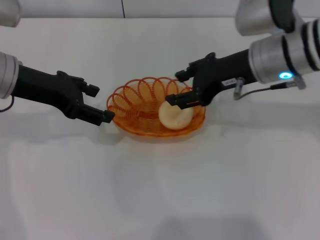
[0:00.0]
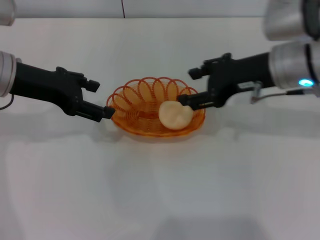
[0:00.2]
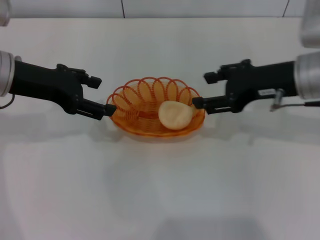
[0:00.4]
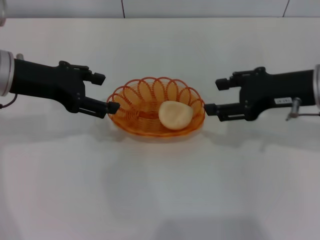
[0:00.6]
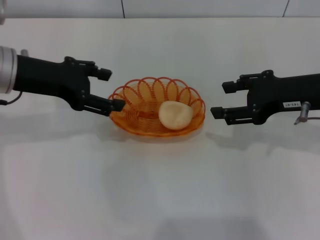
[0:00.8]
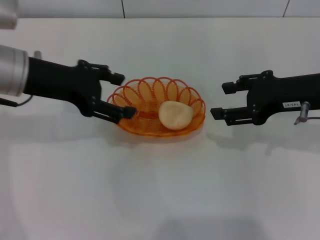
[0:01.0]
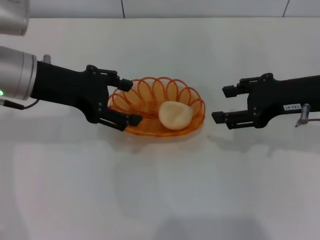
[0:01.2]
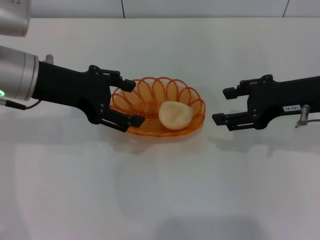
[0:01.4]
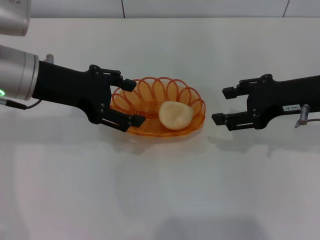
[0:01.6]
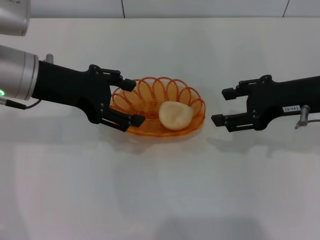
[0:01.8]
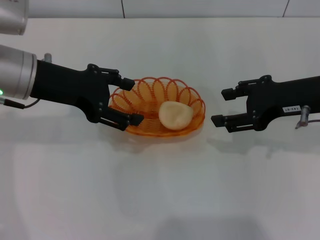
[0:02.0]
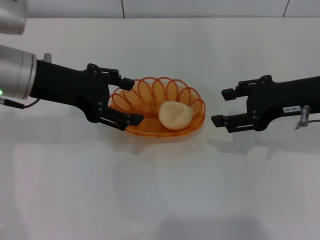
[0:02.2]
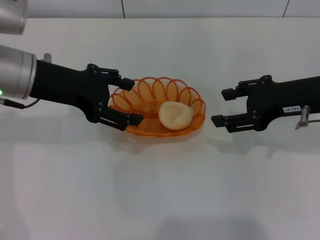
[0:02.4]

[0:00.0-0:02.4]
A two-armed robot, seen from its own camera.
0:00.0 to 0:01.2: The right gripper is displaced to the right by about 10 cm, and opens.
0:01.2 to 0:02.4: Both grippers stay about where they are.

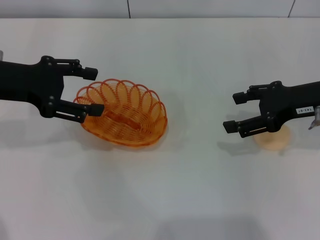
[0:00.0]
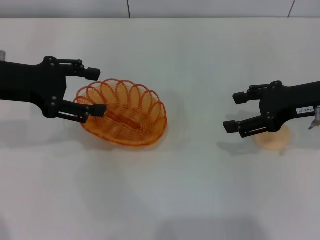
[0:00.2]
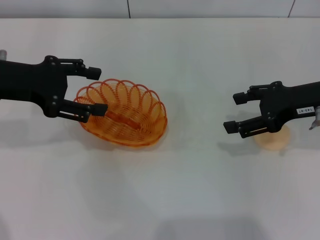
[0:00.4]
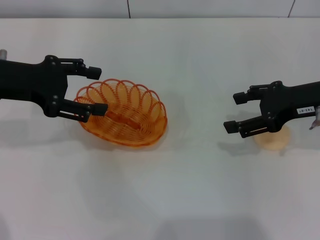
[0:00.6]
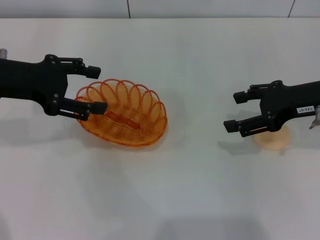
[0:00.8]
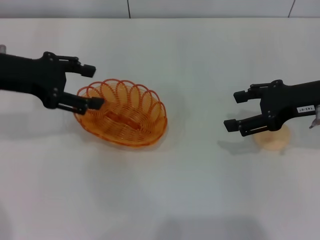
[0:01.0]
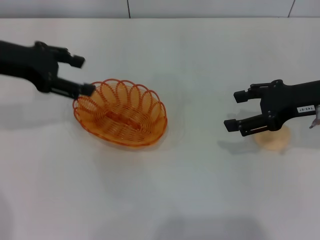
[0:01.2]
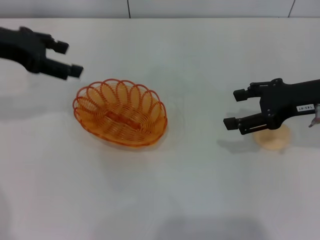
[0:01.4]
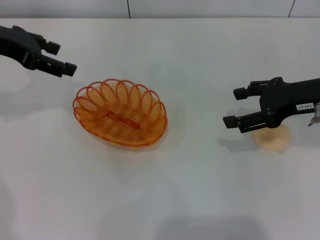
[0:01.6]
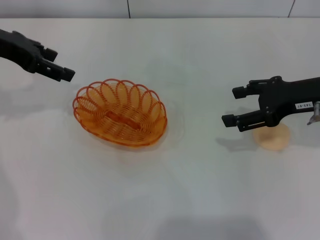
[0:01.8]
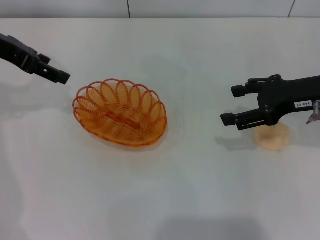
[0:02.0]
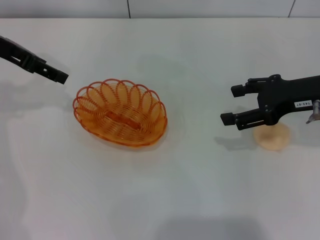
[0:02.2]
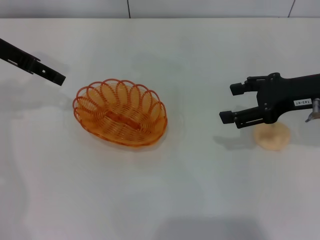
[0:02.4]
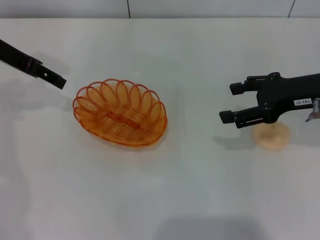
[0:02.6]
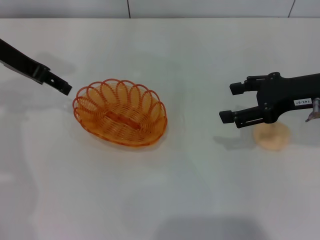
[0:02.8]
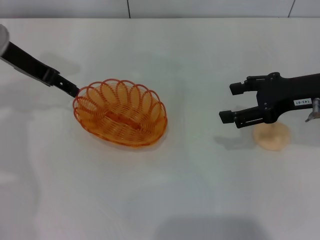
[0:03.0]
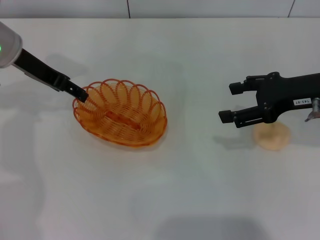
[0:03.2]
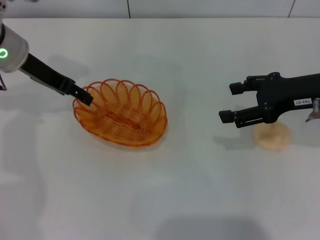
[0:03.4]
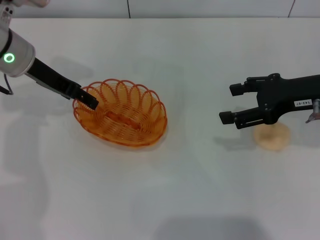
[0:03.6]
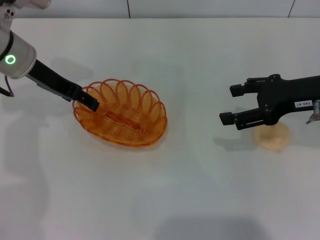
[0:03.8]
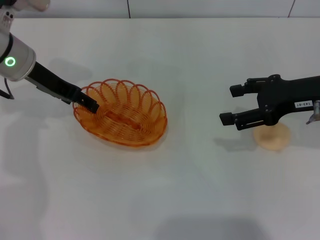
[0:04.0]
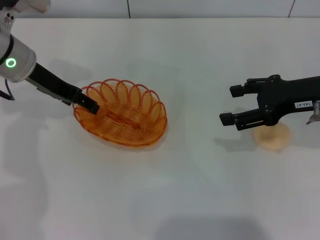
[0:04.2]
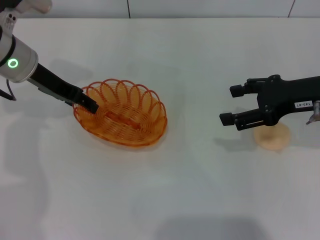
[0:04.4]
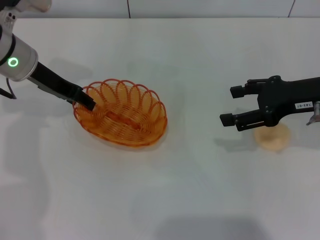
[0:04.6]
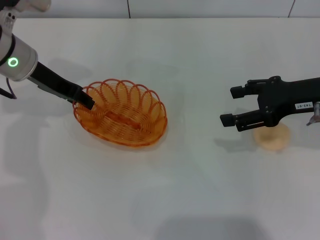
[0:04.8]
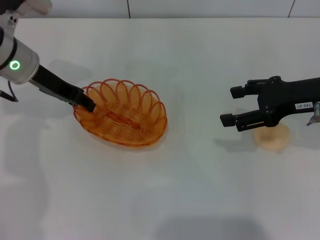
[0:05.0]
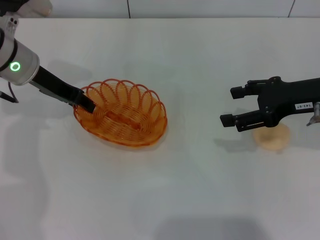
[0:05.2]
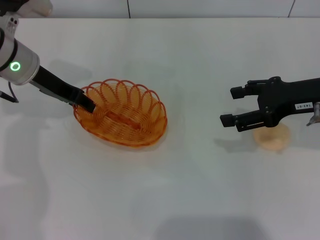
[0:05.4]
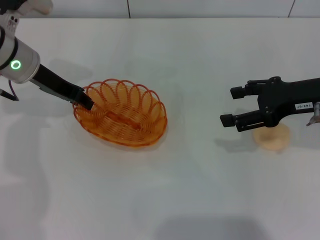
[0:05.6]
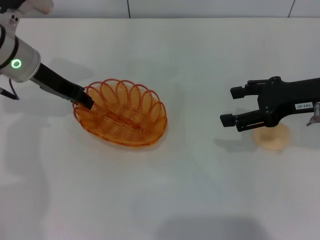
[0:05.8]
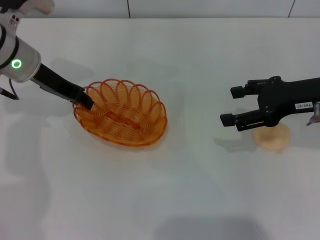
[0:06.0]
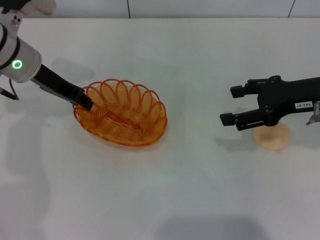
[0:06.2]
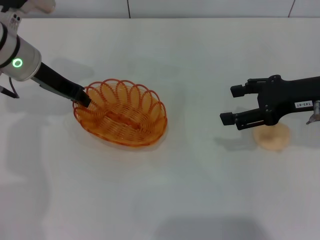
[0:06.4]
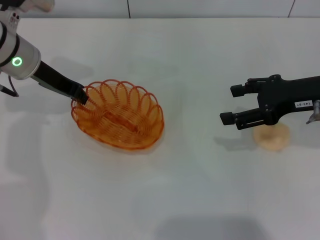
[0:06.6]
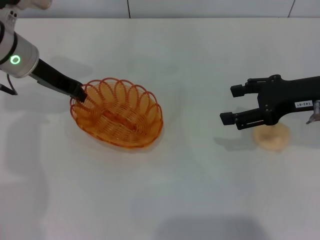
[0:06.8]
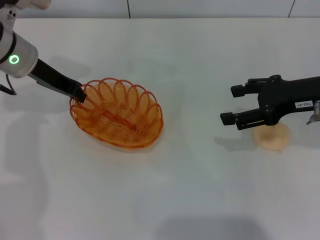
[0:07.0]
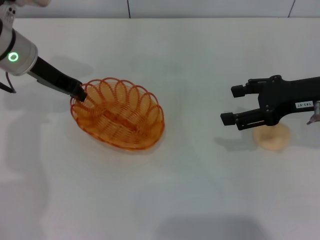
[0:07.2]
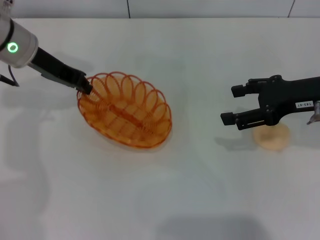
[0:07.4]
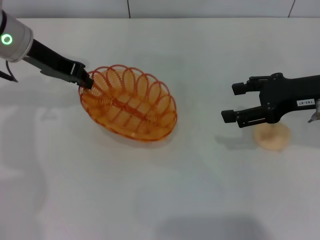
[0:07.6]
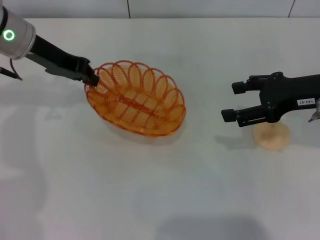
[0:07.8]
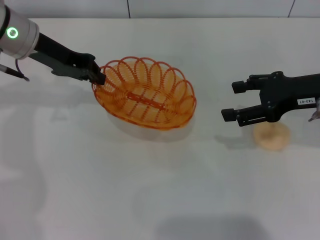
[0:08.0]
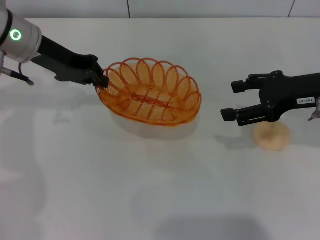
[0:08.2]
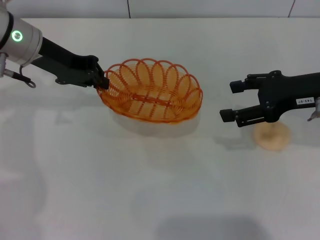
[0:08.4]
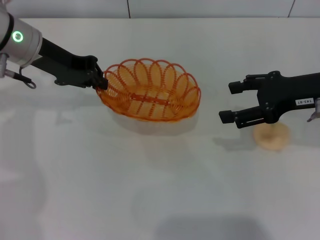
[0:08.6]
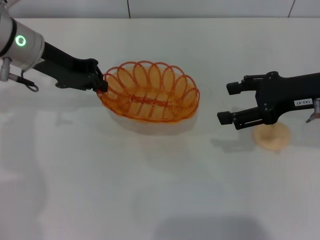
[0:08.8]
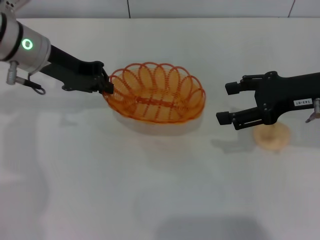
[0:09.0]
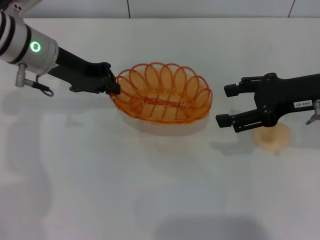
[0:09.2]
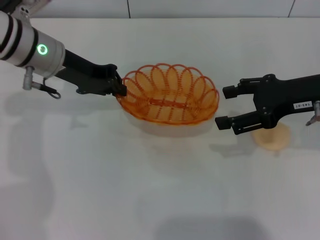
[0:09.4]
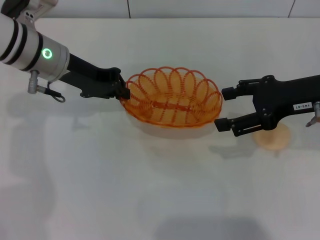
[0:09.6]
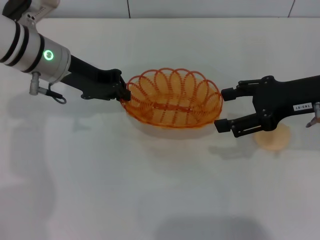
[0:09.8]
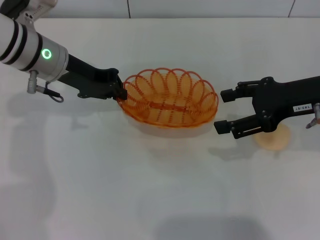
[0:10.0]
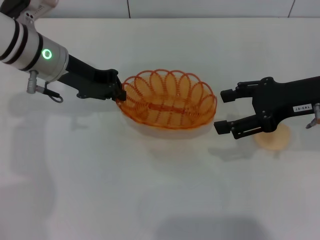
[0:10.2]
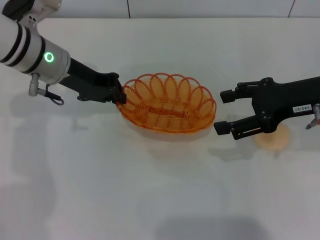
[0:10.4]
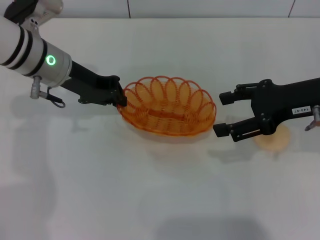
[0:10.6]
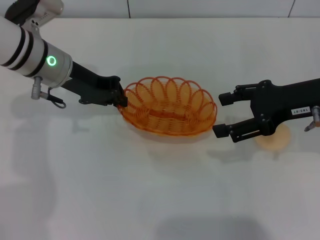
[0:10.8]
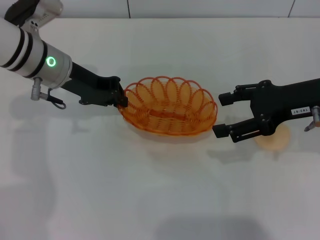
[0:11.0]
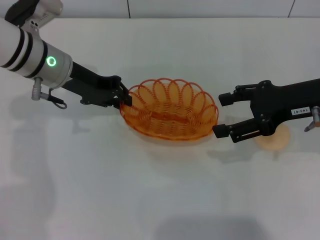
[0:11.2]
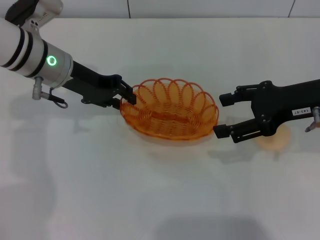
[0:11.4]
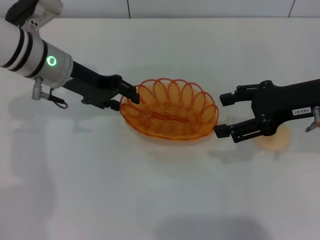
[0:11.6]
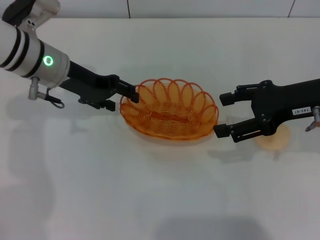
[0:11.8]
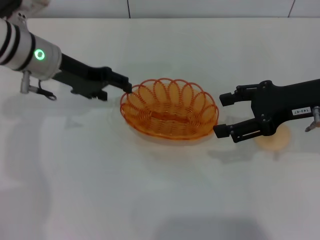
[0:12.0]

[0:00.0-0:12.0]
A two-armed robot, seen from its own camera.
Step, 0:00.0 to 0:08.2: Pick up the basket with the left gripper.
0:00.0 to 0:01.6: The left gripper shifts some 5 cm forward.
0:01.6 to 0:03.0: The left gripper shifts by about 5 cm.
0:03.0 to 0:04.4: The grippers move only a little.
0:04.4 to 0:06.0: The left gripper closes up.
0:06.0 to 0:07.6: The grippers move only a little.
0:09.0 to 0:10.4: The grippers stay close to where they were, moving slightly.
0:10.4 to 0:12.0: The left gripper opens.

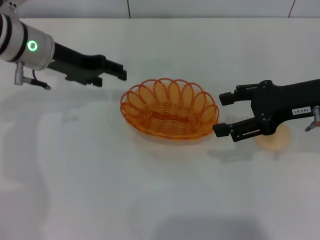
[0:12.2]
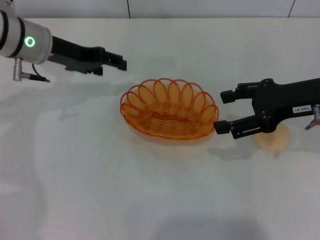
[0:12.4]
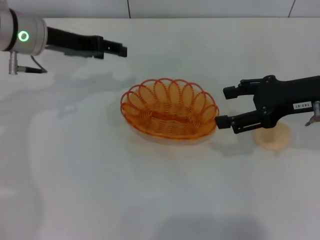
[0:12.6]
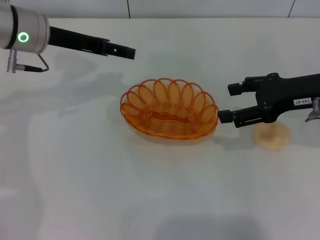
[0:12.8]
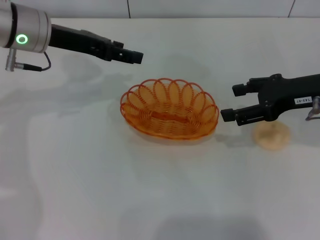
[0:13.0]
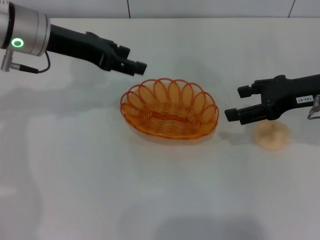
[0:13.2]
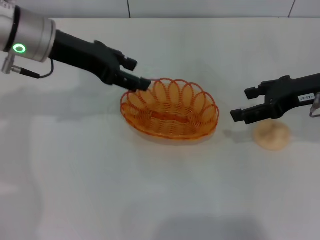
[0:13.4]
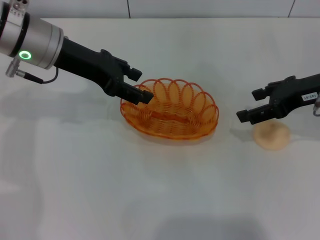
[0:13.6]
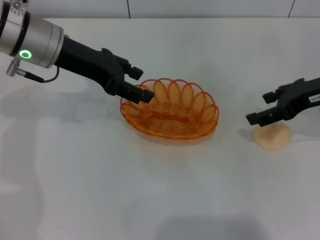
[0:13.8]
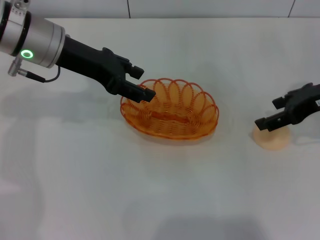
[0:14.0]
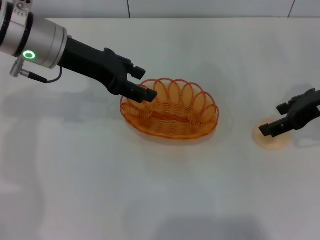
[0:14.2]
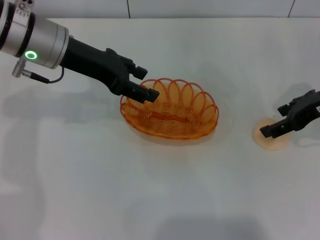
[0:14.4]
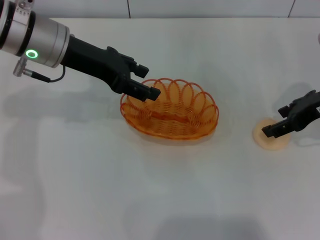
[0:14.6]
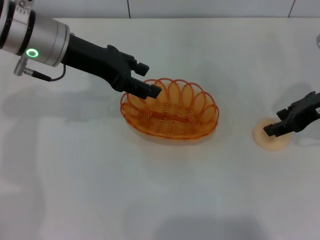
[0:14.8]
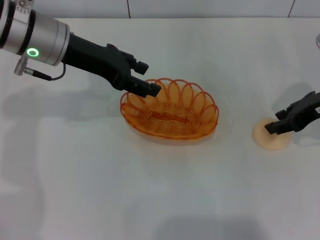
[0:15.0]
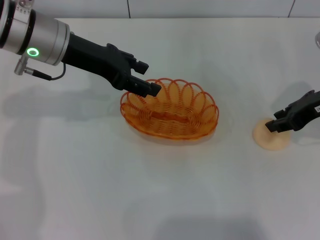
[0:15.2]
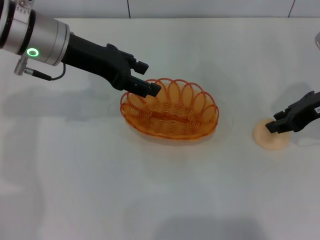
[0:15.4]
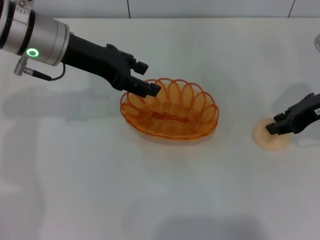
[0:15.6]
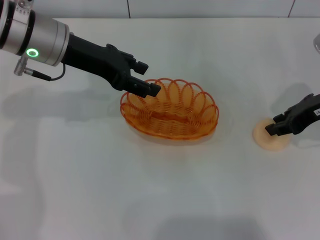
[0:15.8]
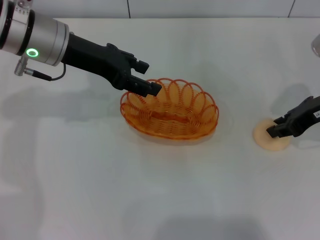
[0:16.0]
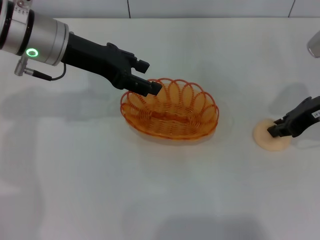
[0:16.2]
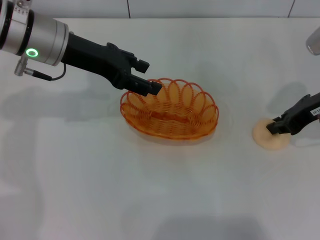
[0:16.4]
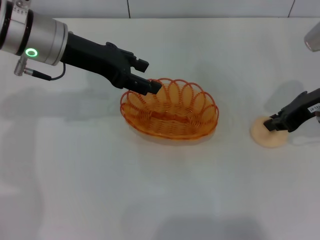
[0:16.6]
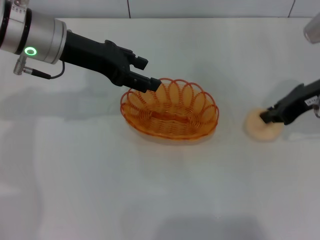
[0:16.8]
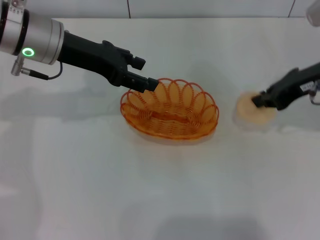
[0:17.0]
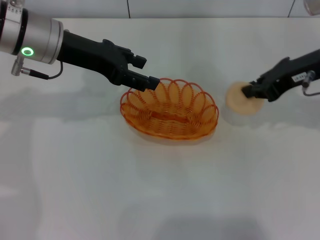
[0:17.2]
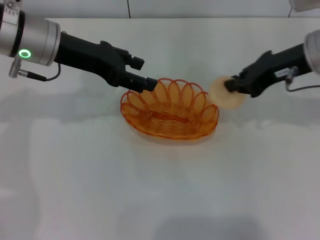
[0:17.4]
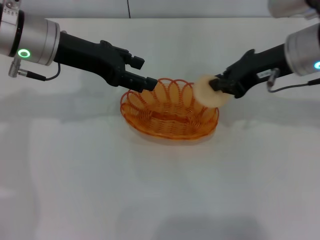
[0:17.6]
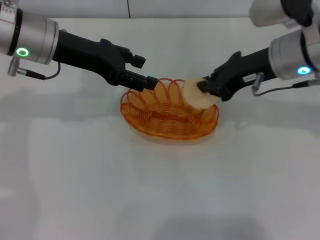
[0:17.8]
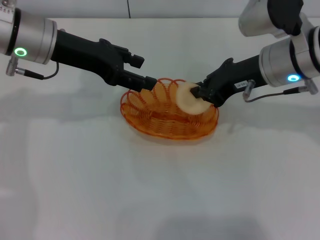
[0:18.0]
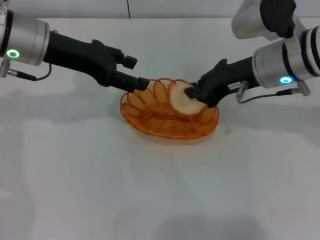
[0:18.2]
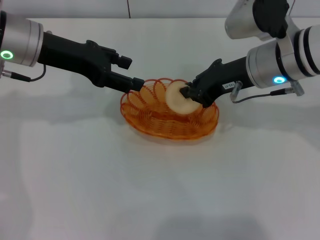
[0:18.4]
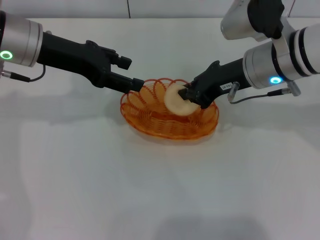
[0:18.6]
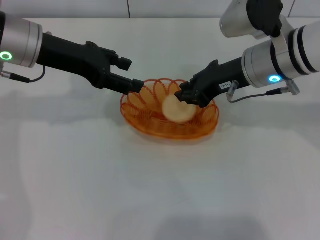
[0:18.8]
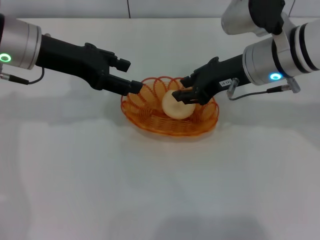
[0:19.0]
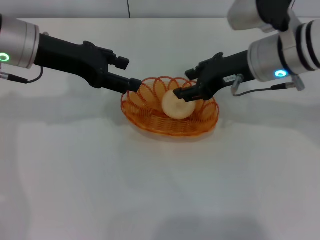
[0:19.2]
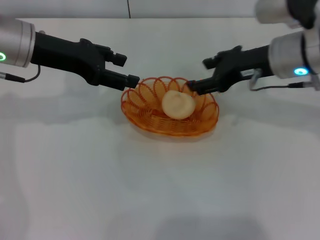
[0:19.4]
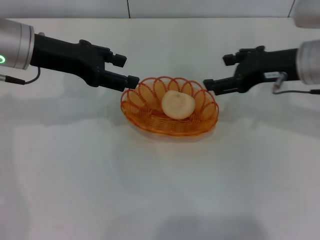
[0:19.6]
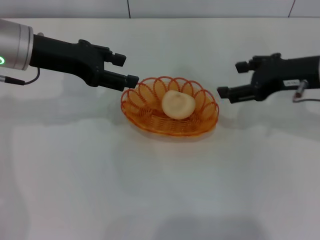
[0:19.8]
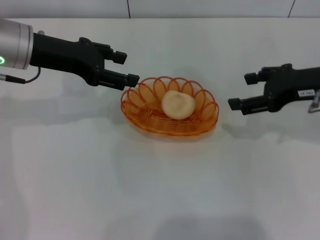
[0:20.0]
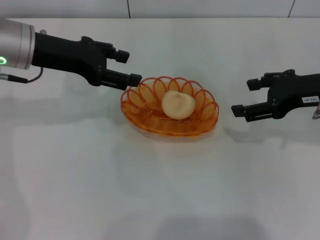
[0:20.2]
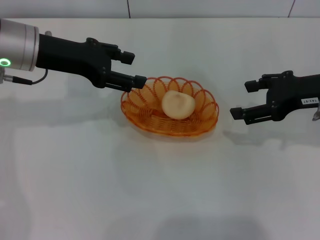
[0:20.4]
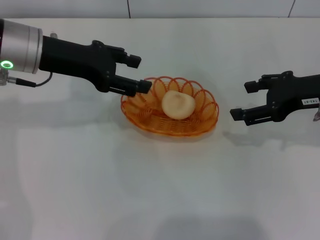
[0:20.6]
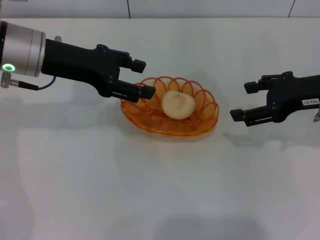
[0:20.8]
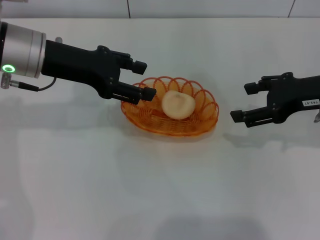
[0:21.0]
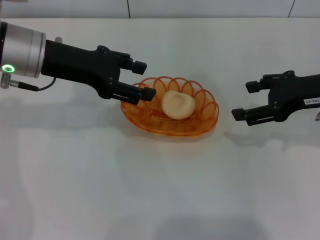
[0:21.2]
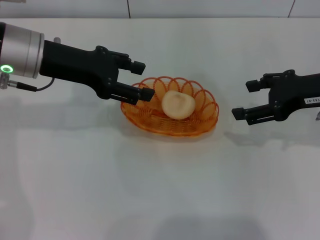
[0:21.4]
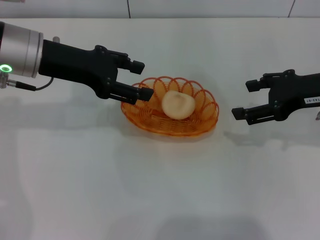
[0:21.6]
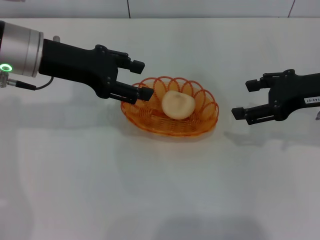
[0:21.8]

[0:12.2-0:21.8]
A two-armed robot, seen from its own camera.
Step, 0:12.4 to 0:17.2: Pick up the egg yolk pastry with the right gripper.
Step, 0:17.4 to 0:20.0: Place the egg yolk pastry into the basket with the right gripper.
0:13.8 to 0:15.4: The right gripper closes up.
0:15.4 to 0:17.0: The right gripper closes.
0:17.0 to 0:18.6: The right gripper goes about 10 cm to the left.
0:18.6 to 0:20.2: The right gripper heads to the right, covering roughly 10 cm, and opens.
0:20.2 to 0:21.8: The grippers move only a little.
